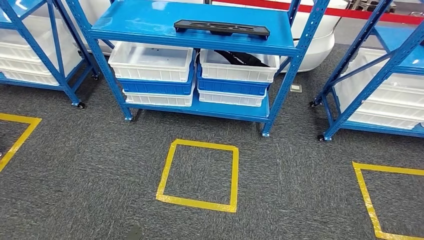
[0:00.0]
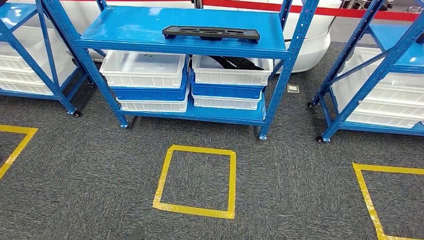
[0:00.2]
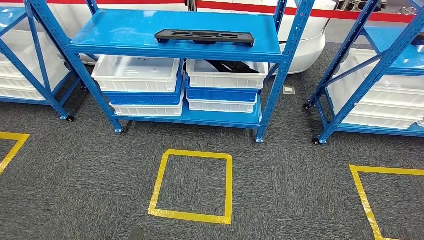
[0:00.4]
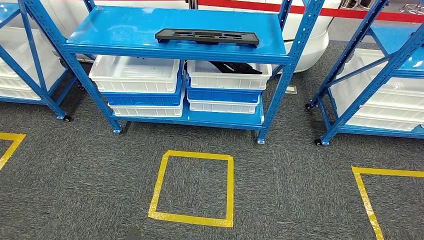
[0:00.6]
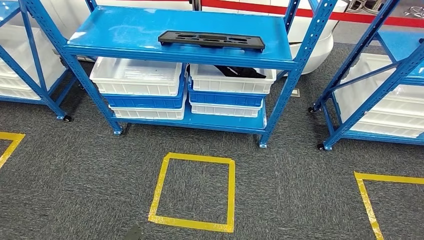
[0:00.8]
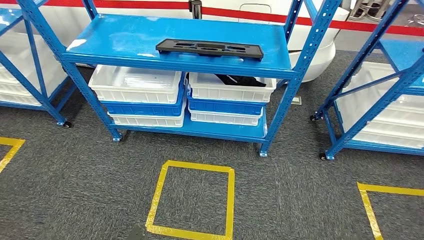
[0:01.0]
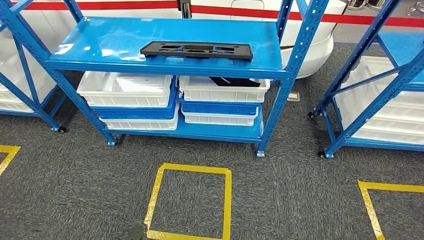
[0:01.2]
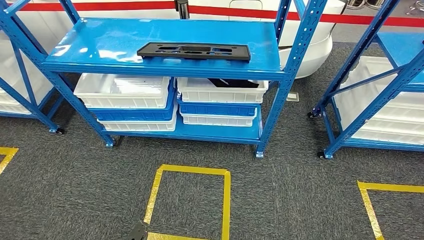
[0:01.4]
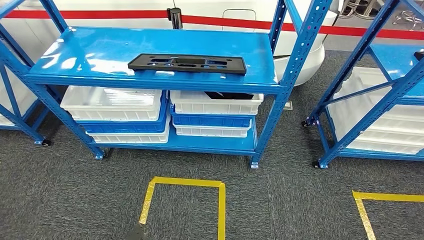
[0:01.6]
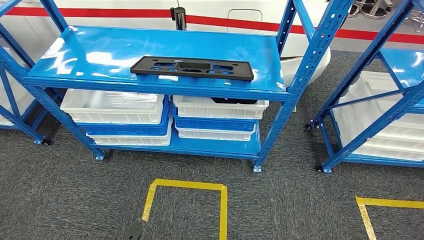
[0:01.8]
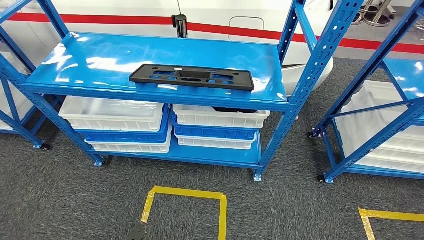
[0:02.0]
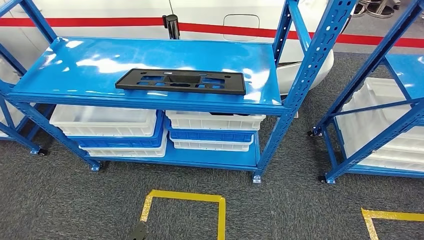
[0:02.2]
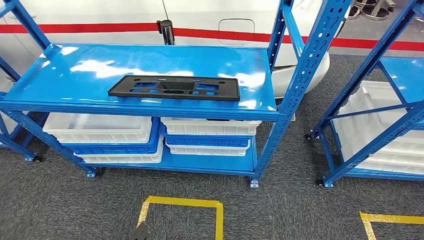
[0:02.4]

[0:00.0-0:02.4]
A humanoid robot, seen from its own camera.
Step, 0:00.0 to 0:02.4: Move to the initial position of the shelf.

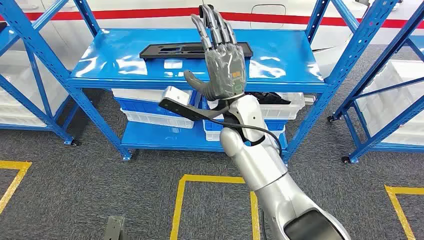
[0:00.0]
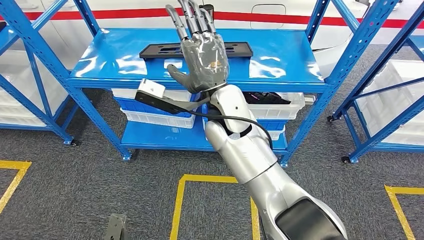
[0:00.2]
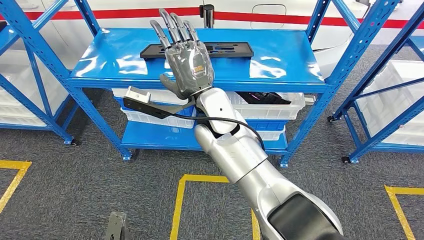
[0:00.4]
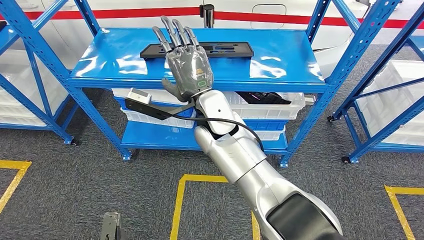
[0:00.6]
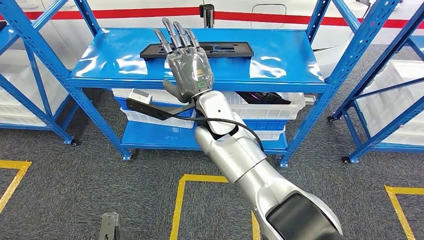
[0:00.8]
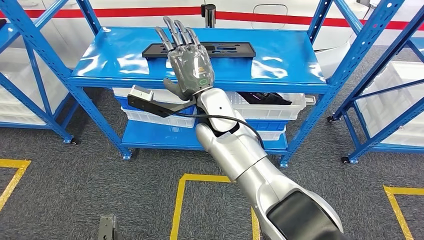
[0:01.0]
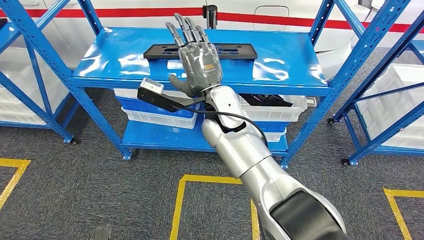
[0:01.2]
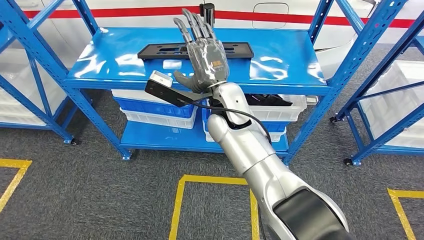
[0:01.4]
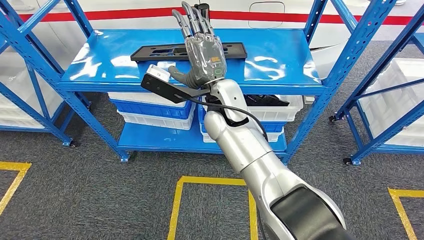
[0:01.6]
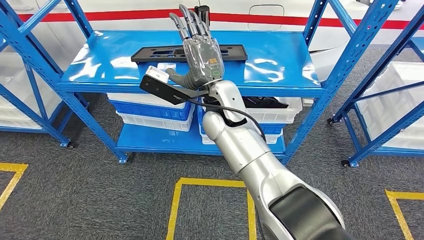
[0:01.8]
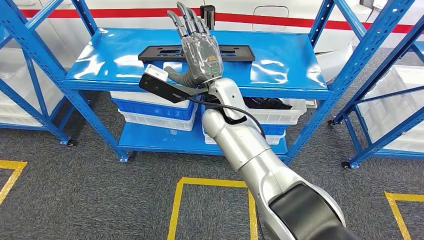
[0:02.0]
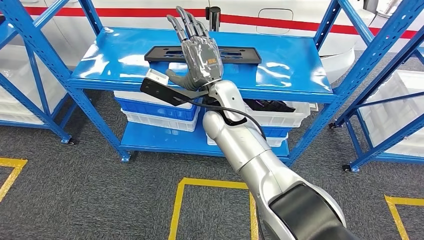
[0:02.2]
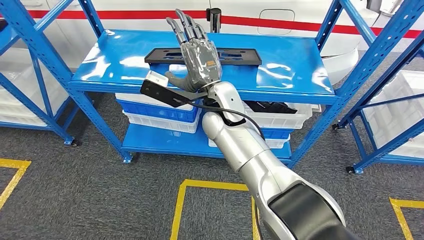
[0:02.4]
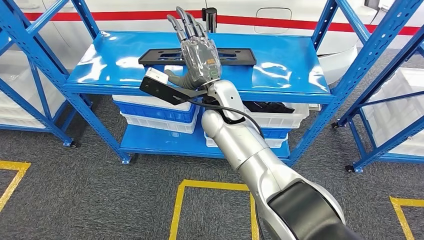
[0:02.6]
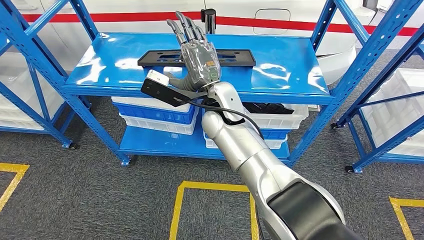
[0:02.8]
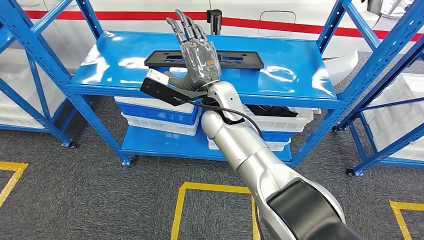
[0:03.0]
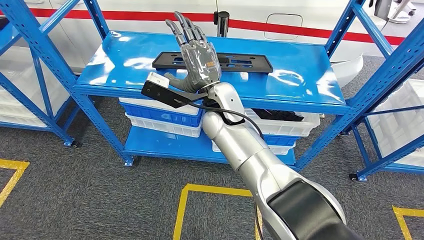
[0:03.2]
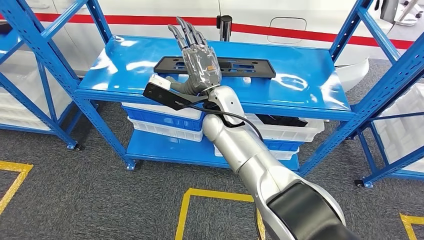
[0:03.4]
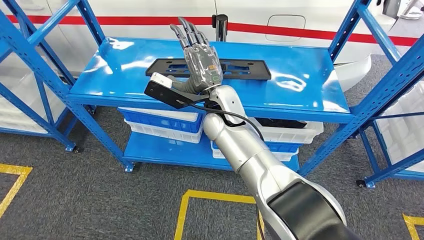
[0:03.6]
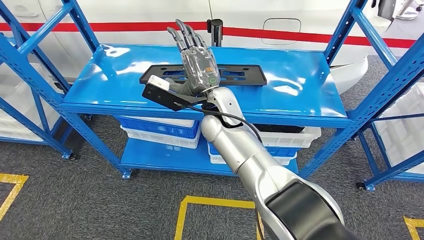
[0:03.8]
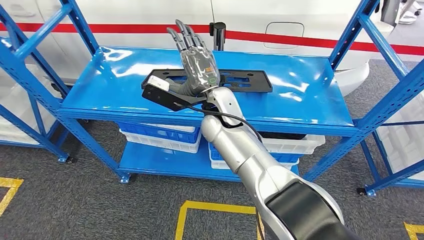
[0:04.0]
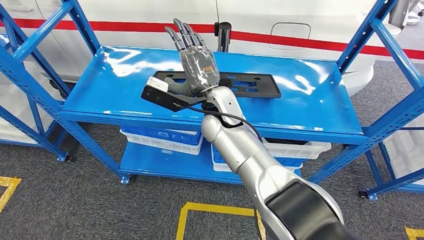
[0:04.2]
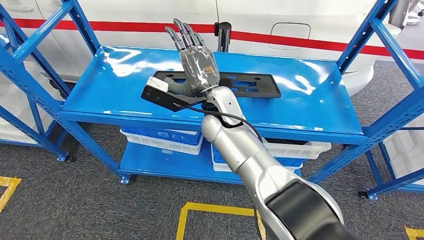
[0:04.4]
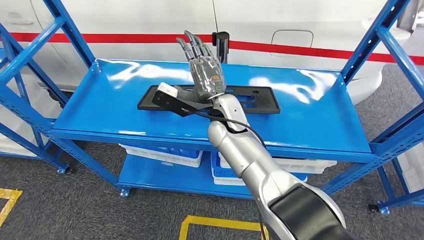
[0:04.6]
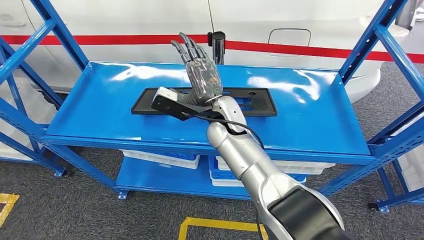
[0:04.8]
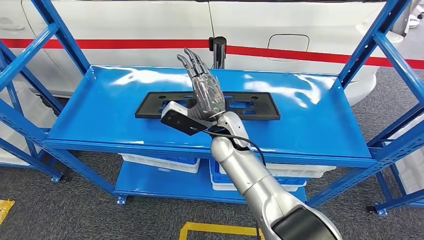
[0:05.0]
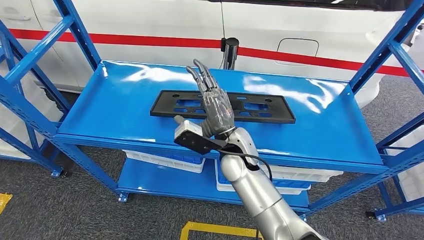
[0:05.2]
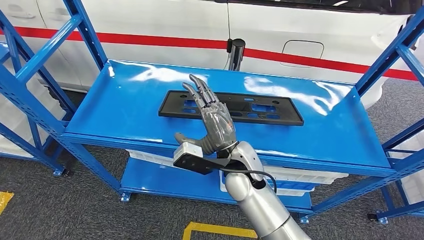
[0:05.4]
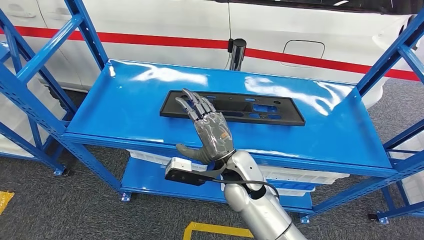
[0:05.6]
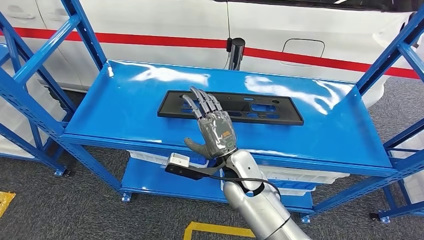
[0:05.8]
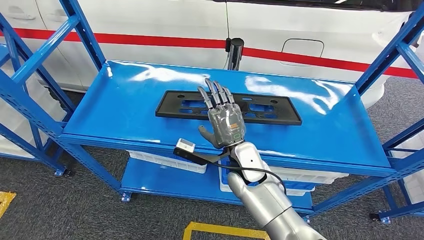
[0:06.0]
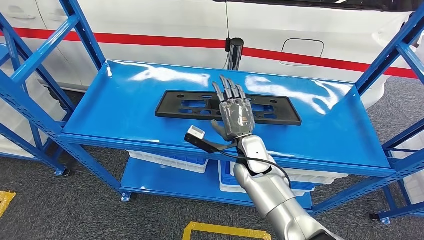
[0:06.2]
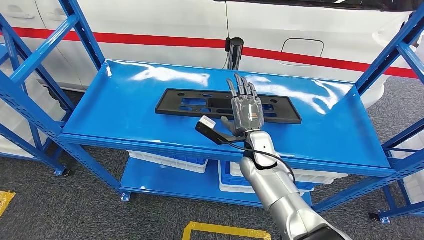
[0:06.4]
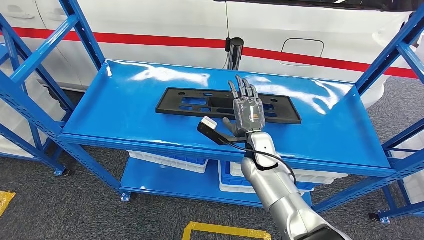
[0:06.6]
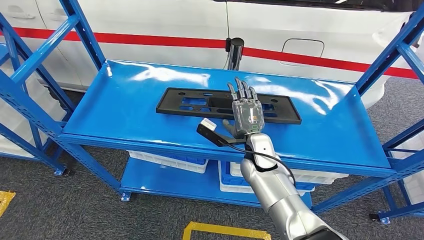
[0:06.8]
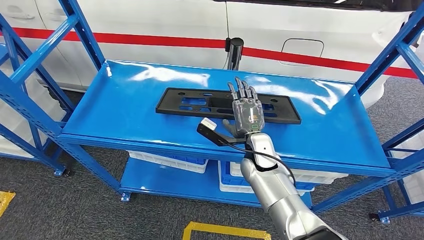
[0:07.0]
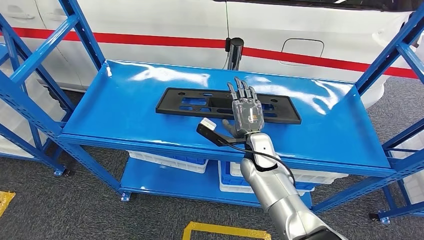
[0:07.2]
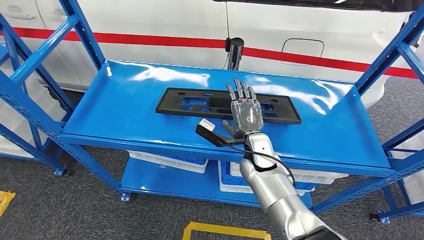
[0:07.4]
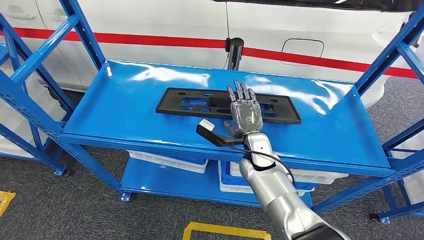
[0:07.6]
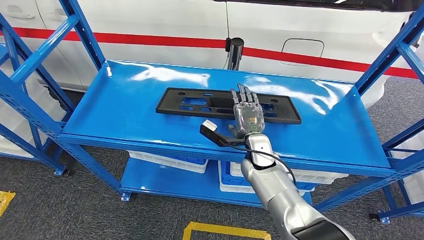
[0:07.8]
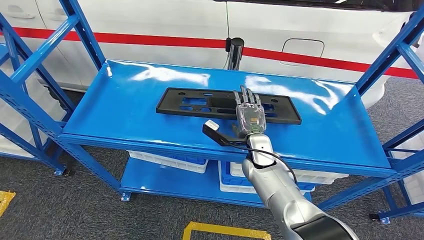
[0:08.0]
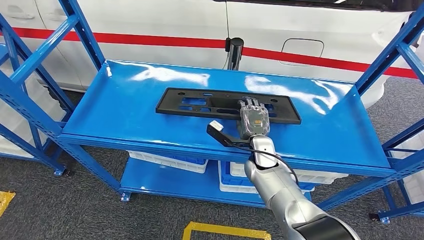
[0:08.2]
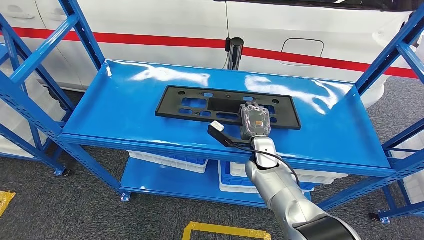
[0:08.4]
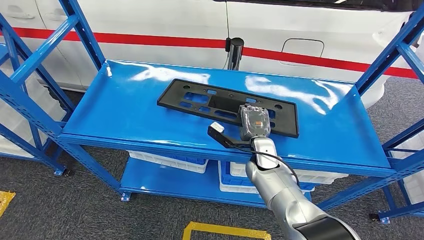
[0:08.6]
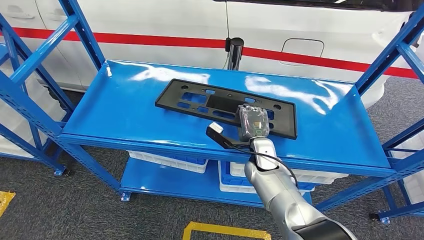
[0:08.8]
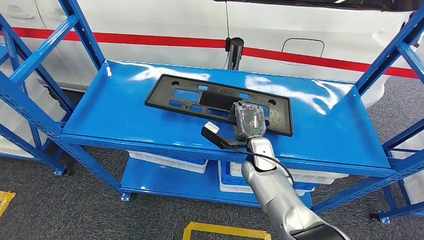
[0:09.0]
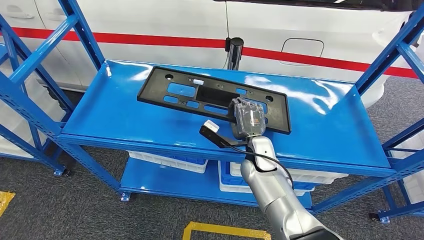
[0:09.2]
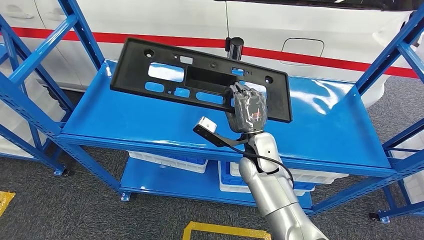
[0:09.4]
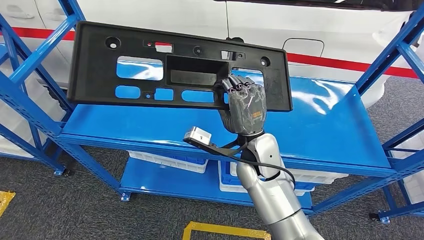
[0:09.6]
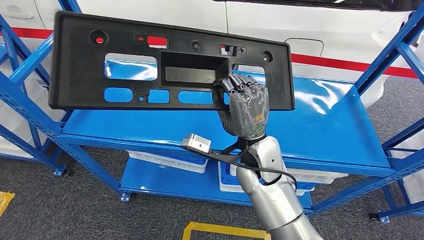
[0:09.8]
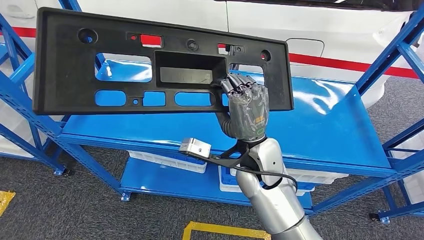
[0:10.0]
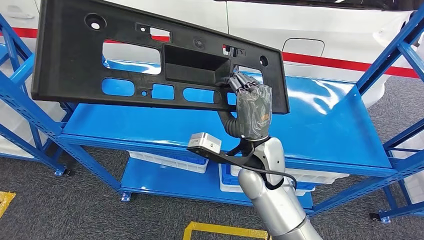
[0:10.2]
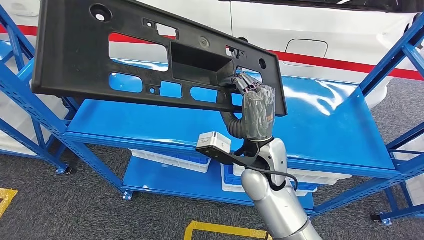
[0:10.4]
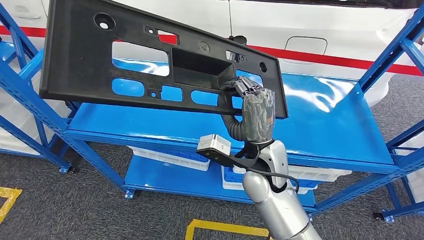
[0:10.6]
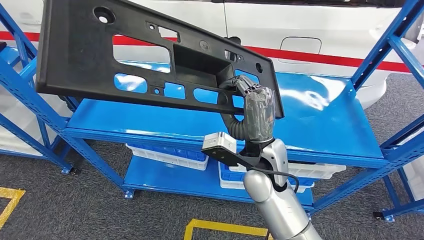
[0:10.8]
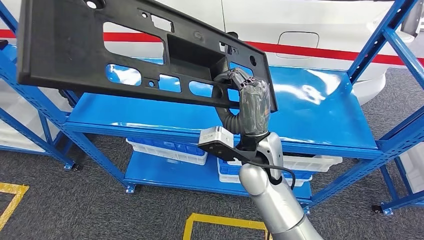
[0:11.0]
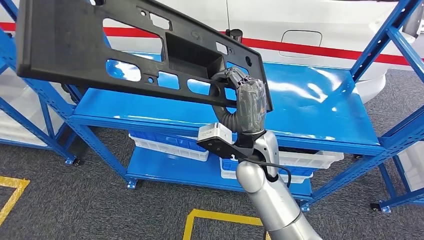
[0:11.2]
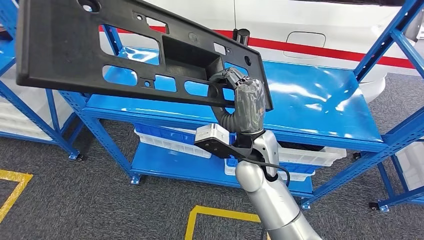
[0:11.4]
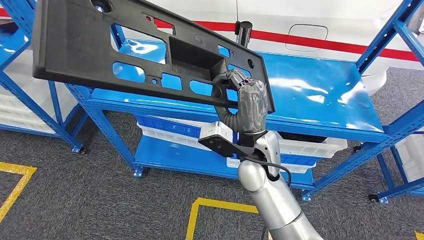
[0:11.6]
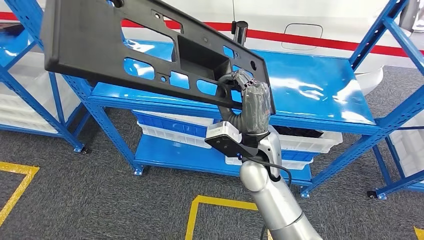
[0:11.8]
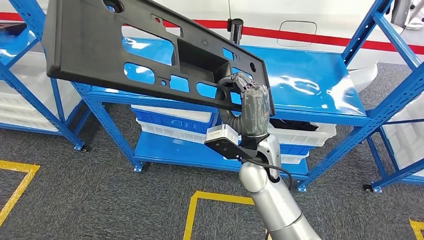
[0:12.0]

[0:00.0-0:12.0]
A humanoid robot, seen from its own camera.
0:06.0 to 0:07.6: The right hand moves roughly 5 cm.
0:07.6 to 0:09.0: There are only small adjustments of the hands.

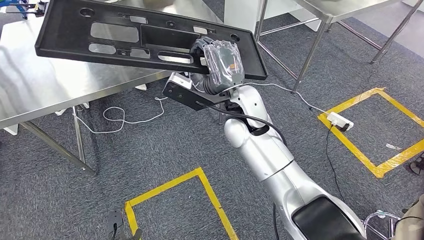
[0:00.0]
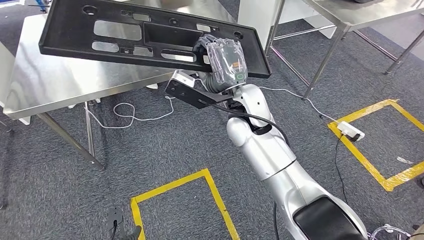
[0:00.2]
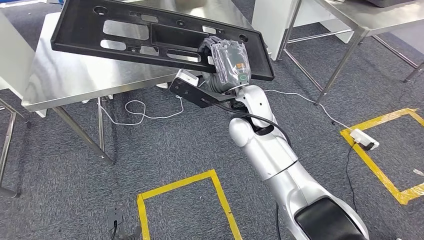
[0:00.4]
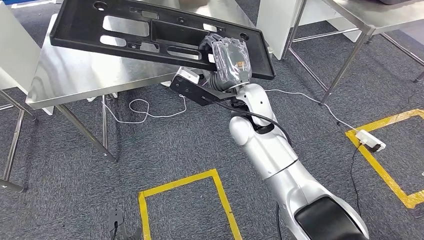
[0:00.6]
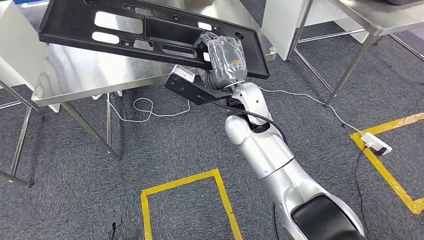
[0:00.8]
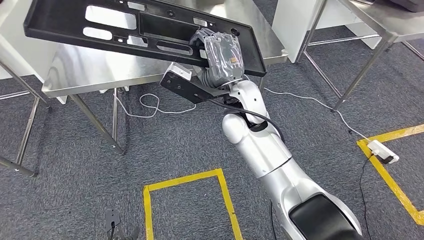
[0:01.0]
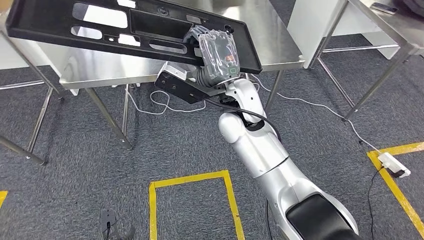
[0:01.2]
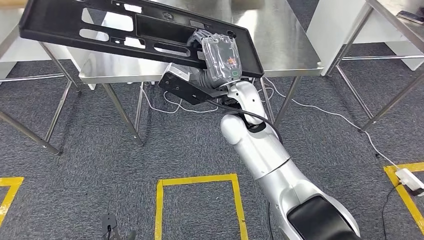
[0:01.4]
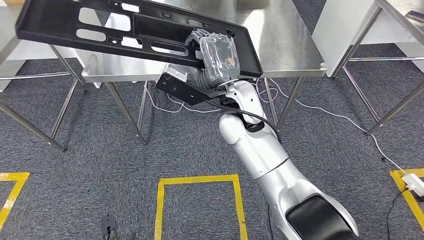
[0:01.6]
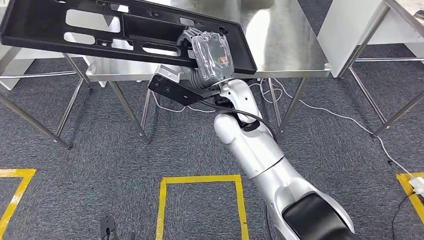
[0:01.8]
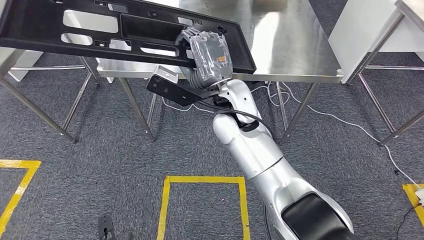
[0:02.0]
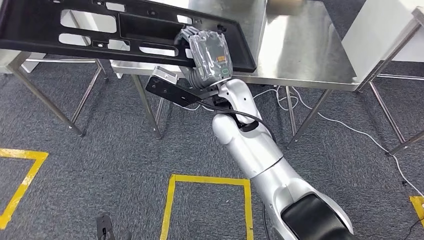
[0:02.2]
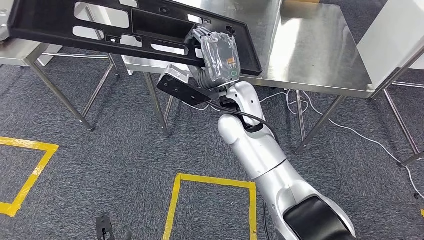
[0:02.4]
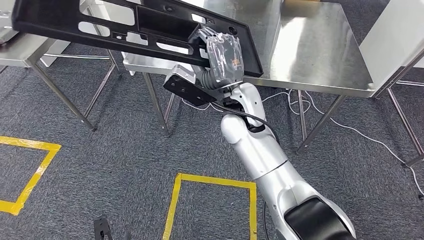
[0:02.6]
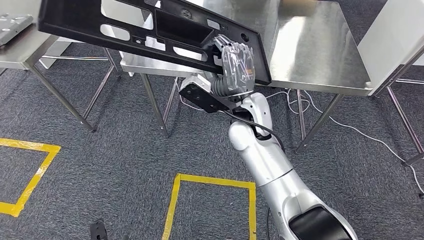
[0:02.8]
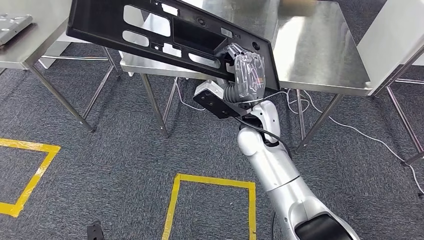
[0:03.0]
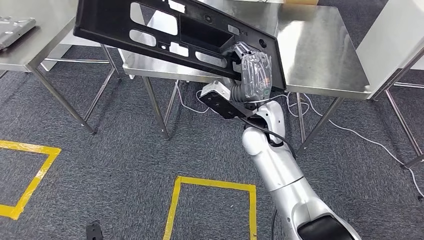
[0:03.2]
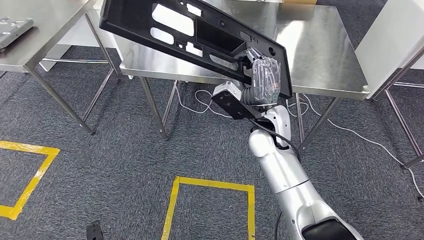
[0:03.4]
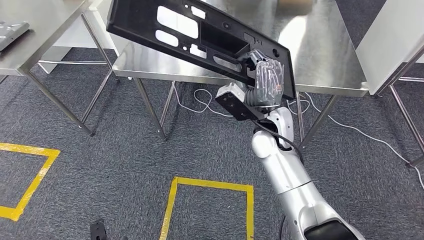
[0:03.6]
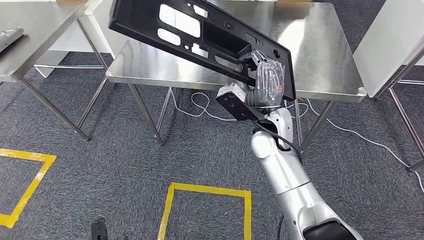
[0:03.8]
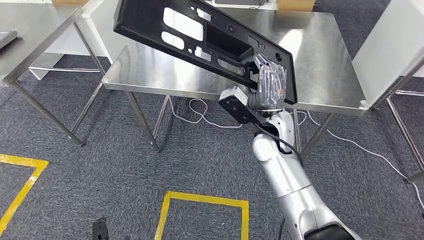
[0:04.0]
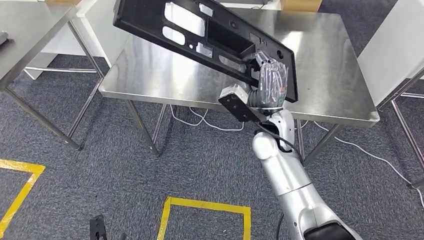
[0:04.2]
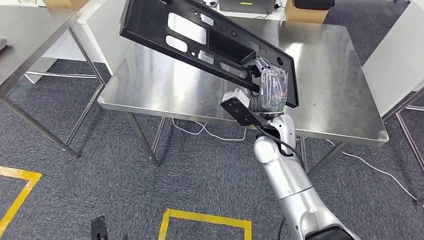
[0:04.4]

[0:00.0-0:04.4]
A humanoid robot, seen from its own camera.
Step, 0:00.0 to 0:02.2: Move the large material to the workbench.
